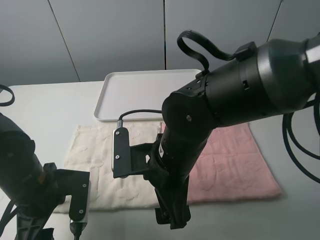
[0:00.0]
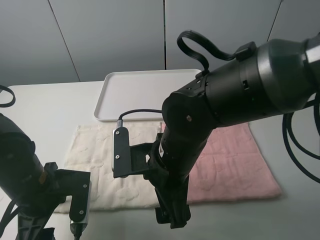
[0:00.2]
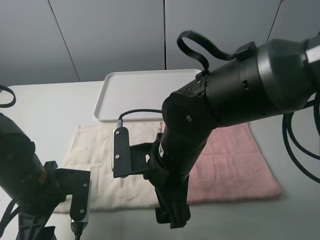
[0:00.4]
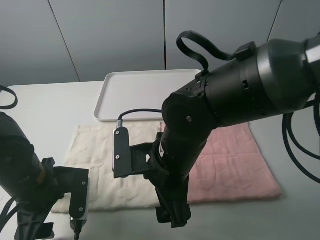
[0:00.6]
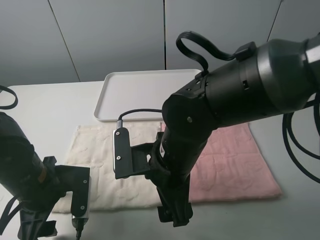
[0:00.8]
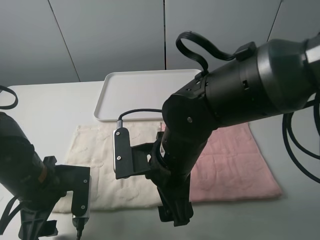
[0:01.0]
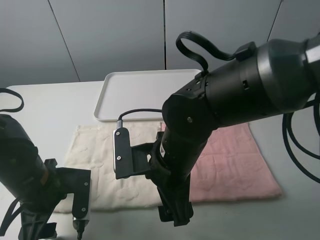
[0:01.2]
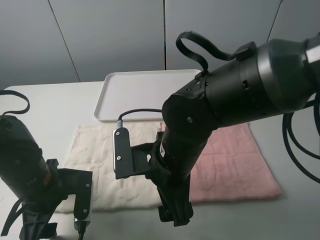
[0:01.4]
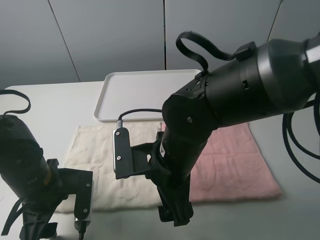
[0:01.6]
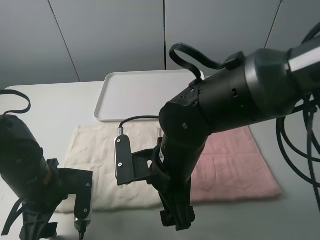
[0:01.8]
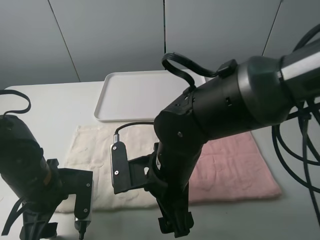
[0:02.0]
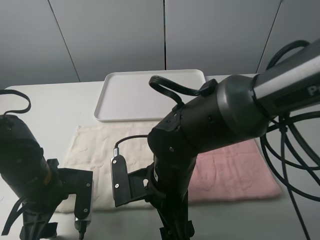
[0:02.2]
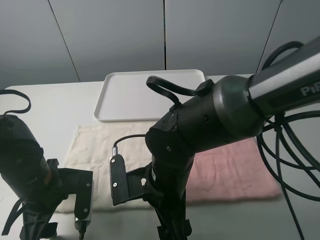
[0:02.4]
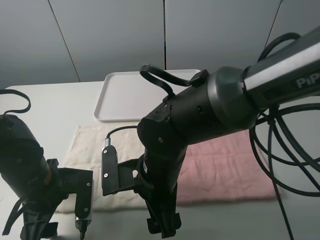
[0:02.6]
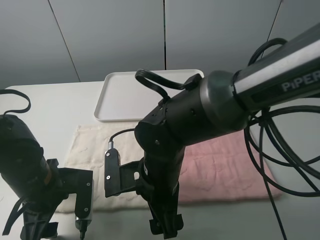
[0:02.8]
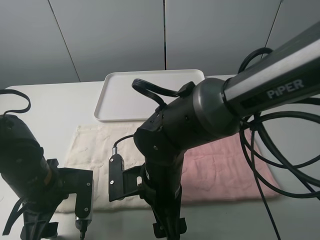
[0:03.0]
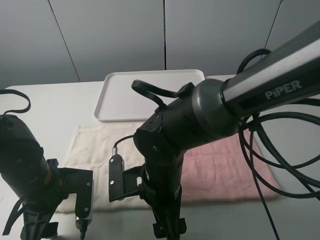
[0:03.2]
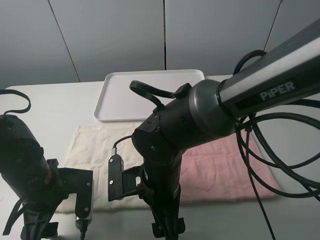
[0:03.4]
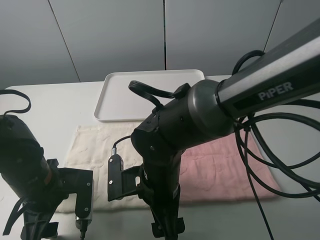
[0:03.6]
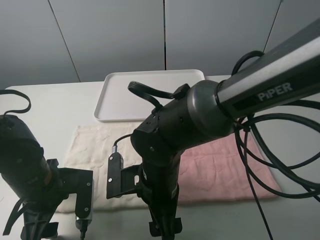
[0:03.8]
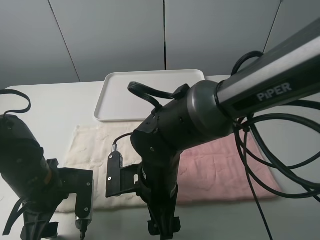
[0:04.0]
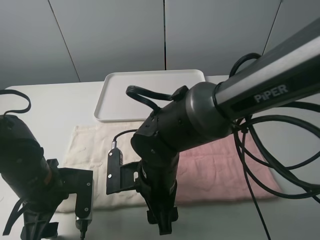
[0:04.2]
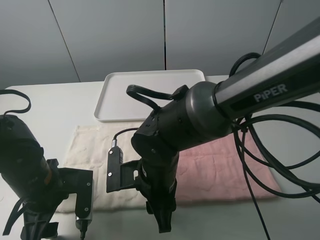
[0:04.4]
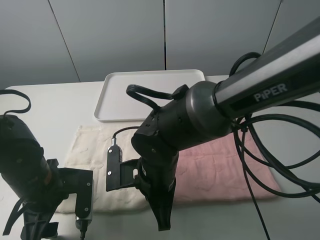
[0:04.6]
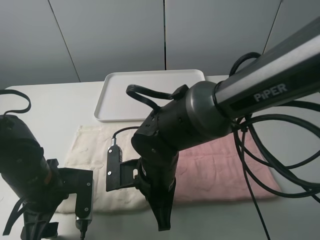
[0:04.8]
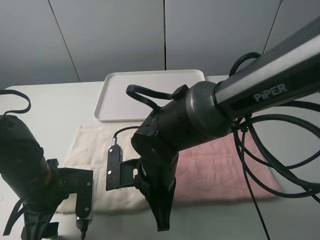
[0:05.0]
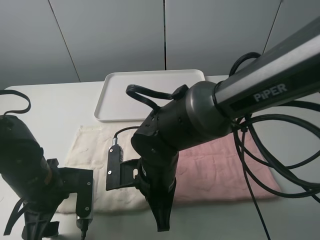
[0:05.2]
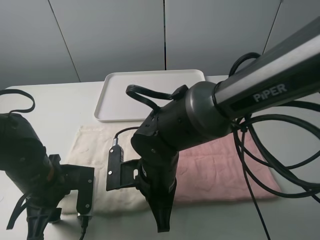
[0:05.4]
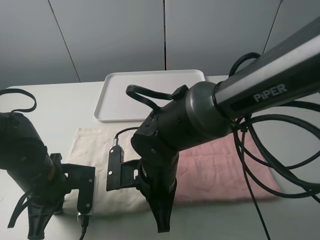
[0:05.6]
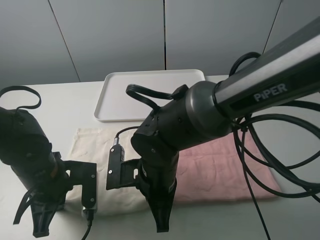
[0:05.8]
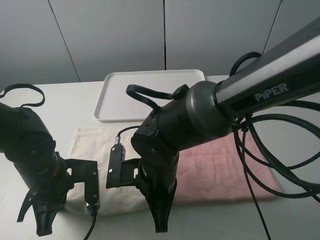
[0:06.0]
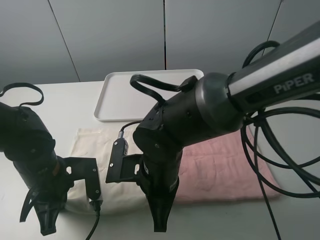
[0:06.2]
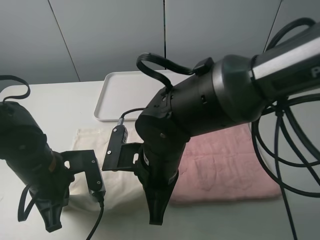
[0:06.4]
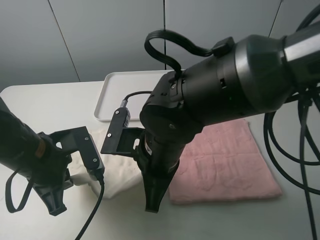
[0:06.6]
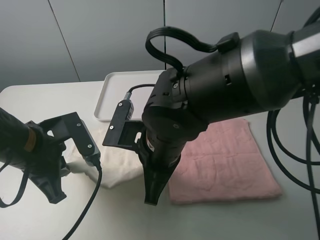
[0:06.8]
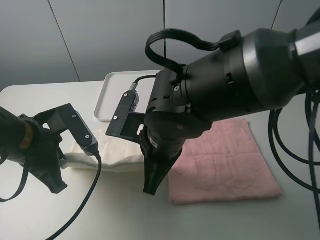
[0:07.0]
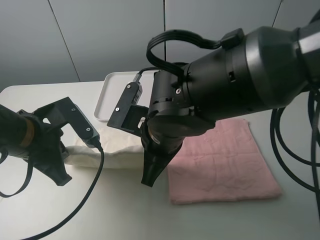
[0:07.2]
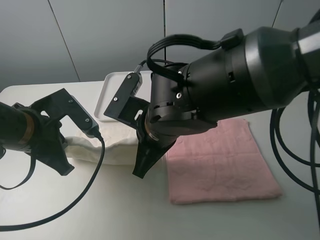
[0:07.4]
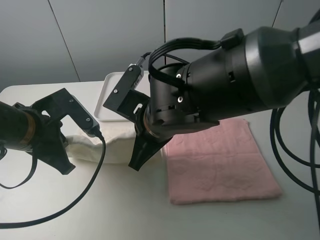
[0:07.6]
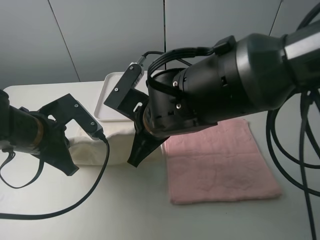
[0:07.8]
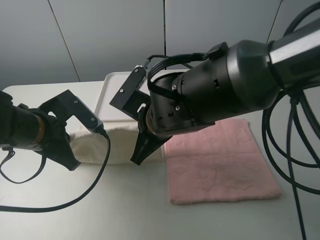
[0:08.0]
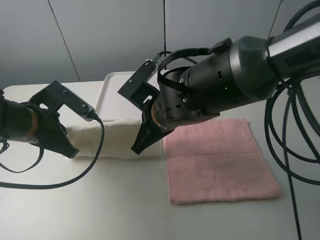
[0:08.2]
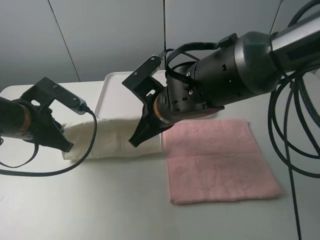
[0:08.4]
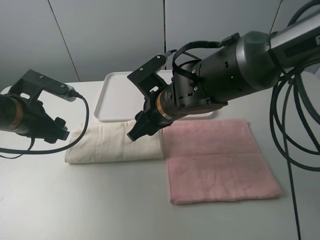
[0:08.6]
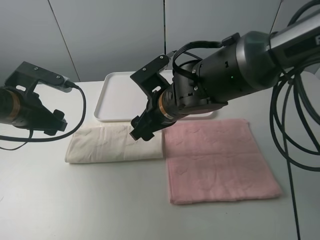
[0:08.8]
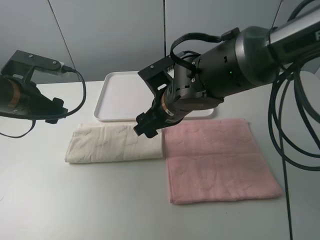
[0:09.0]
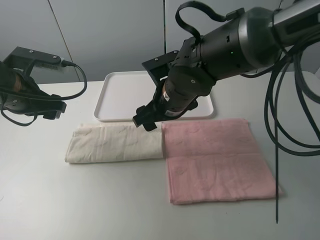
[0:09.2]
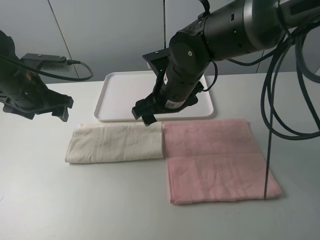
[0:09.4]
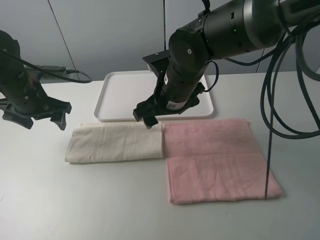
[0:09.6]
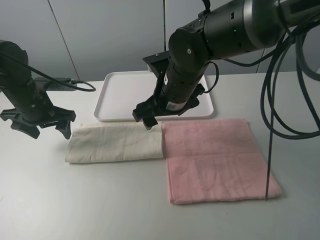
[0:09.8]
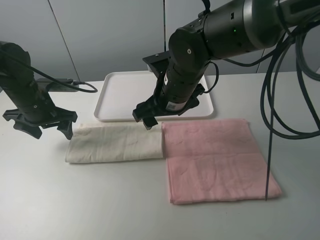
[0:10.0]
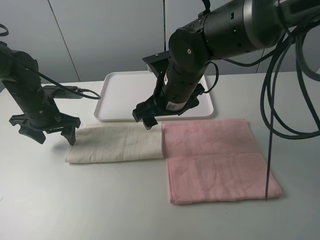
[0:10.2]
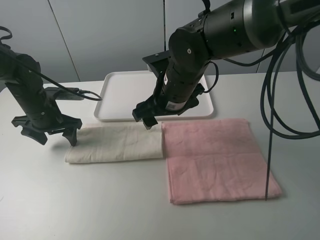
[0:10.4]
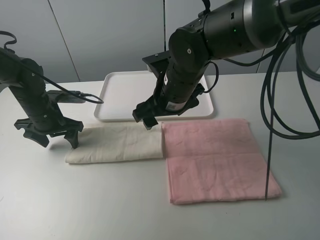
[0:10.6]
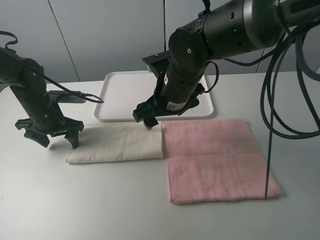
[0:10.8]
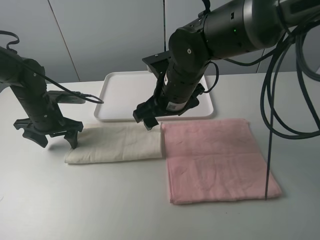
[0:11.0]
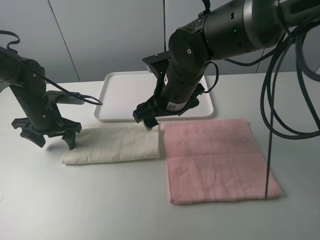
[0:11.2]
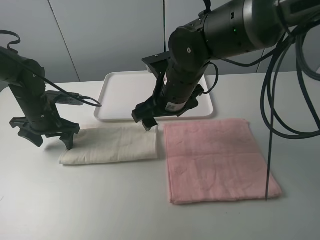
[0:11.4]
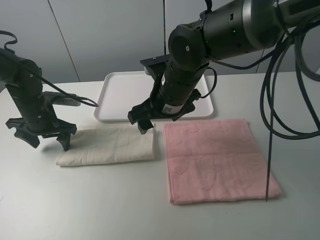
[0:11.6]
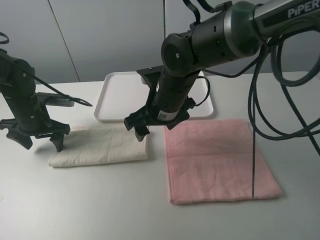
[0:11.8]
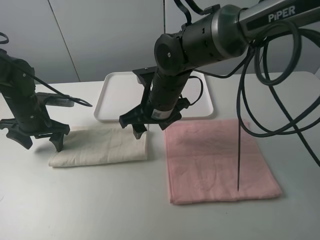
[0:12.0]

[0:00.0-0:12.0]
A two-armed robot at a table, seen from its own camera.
Task of the whole recording: fold one of the towels by two grippers and place it on the tray,then fold another towel by two grippers and place it on the folded towel.
Step, 0:00.0 to 0:05.8: Grasp the white towel with the left gripper.
Step, 0:06.2 to 0:08.8: Fold the white towel upwards with the left gripper.
Step, 0:09.0 to 0:10.8: Press the white towel with the left gripper.
0:00.0 to 0:01.6: The grippers move only a little.
0:01.6 to 0:03.0: The right gripper ends up approximately 5 cm from where it was.
0:03.0 to 0:04.4: The right gripper closes.
0:04.4 to 0:06.0: The left gripper closes its fingers; the right gripper closes up.
0:06.0 to 0:07.6: Both grippers move upward, roughly 10 cm.
0:07.6 to 0:09.0: The left gripper heads forward and to the left, covering some 10 cm, and opens. The right gripper goes about 5 cm forward, and opens up.
0:09.0 to 0:10.4: The left gripper heads downward and forward, covering about 10 cm.
0:10.4 to 0:12.0: The grippers stay close to where they were, moving slightly.

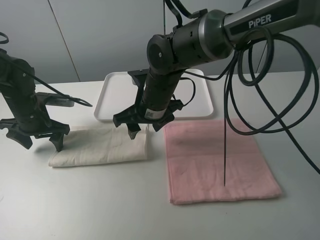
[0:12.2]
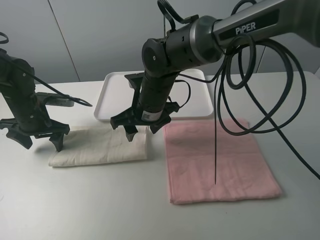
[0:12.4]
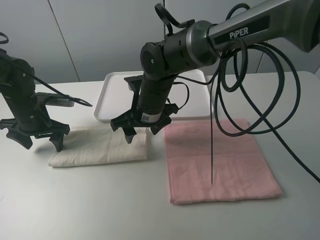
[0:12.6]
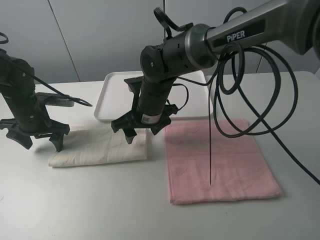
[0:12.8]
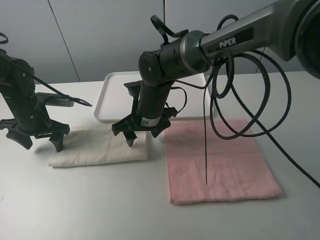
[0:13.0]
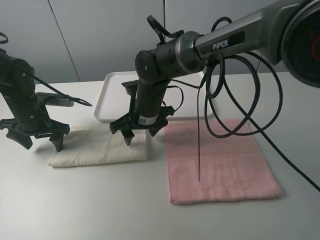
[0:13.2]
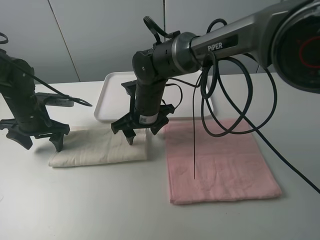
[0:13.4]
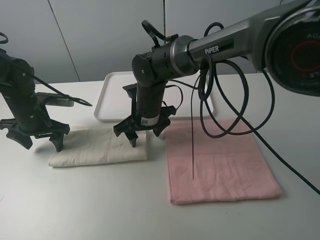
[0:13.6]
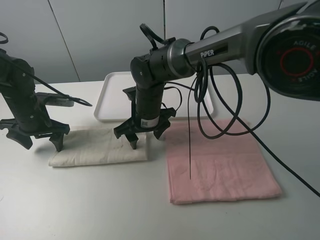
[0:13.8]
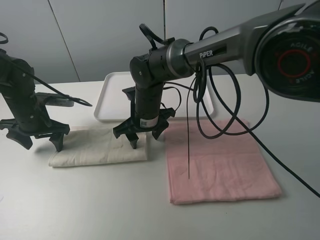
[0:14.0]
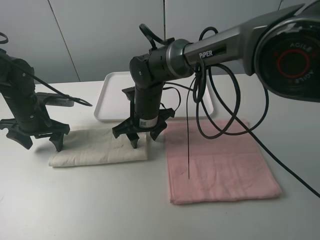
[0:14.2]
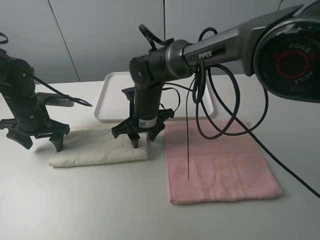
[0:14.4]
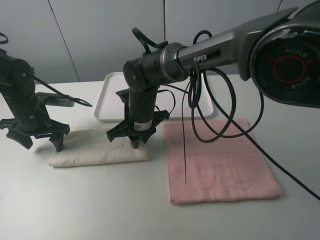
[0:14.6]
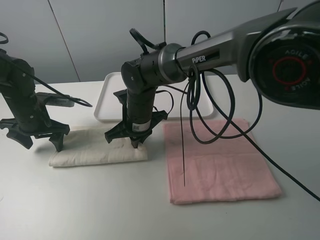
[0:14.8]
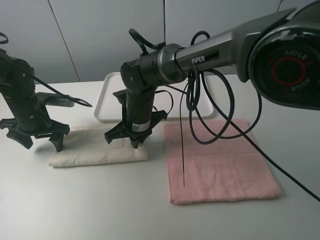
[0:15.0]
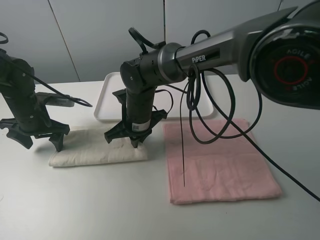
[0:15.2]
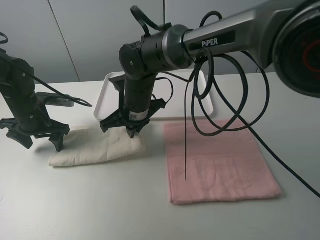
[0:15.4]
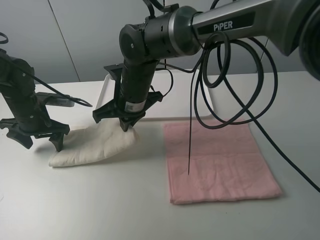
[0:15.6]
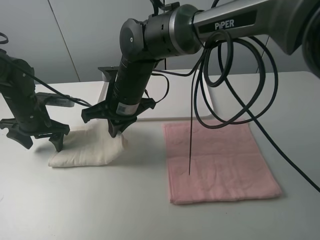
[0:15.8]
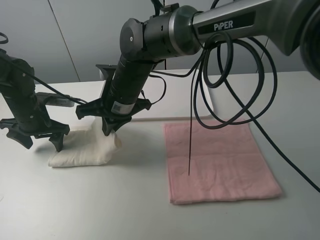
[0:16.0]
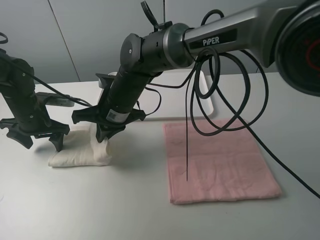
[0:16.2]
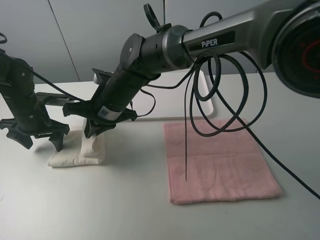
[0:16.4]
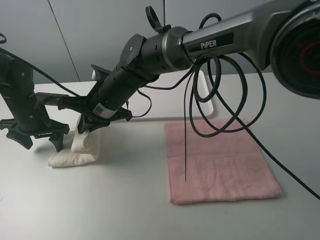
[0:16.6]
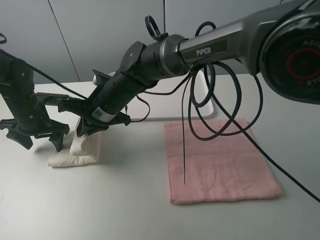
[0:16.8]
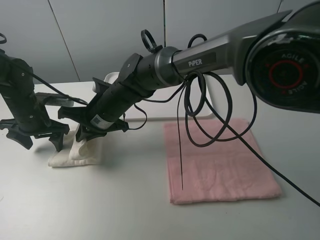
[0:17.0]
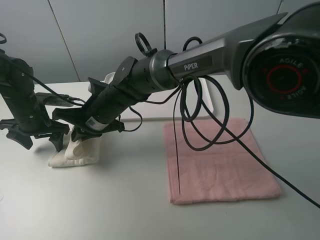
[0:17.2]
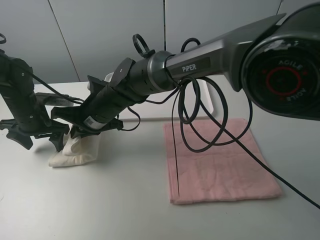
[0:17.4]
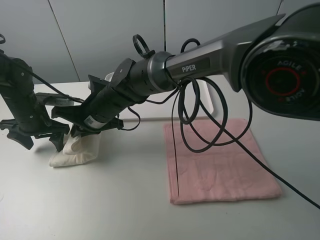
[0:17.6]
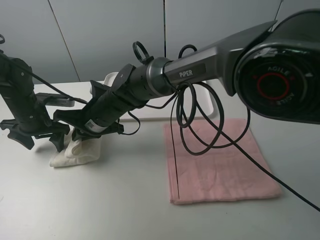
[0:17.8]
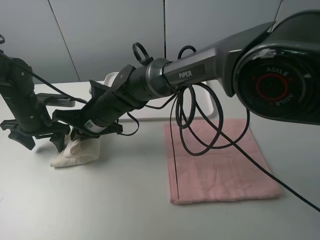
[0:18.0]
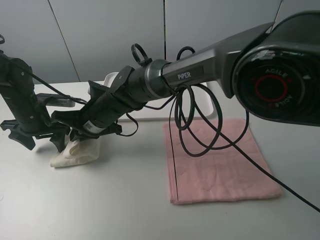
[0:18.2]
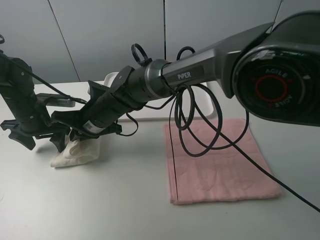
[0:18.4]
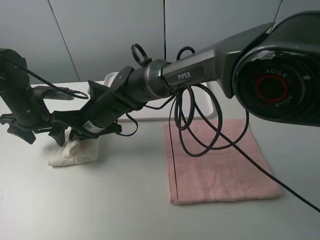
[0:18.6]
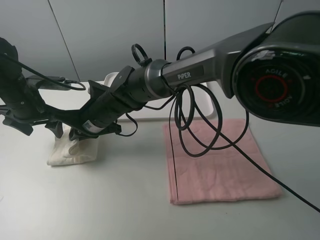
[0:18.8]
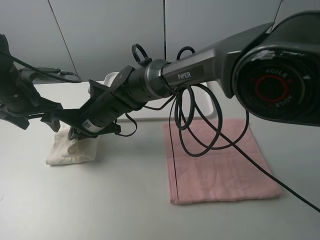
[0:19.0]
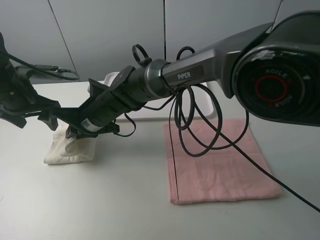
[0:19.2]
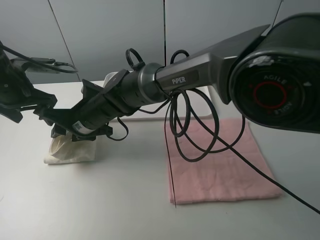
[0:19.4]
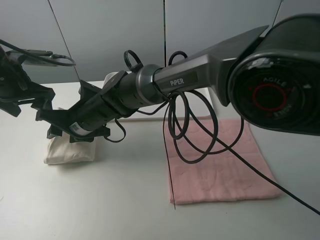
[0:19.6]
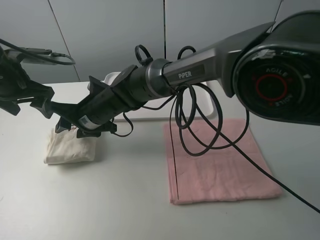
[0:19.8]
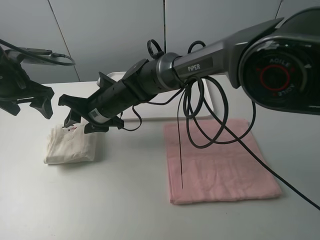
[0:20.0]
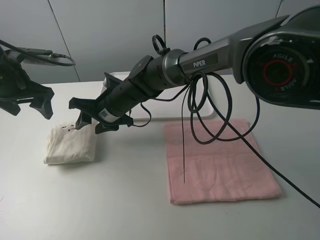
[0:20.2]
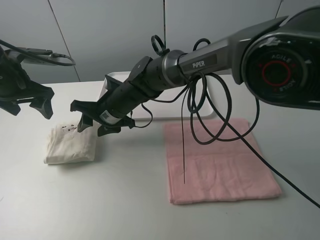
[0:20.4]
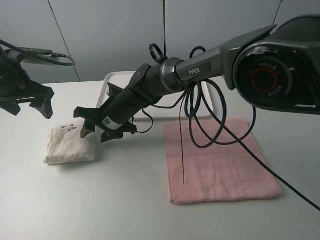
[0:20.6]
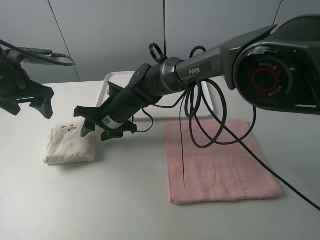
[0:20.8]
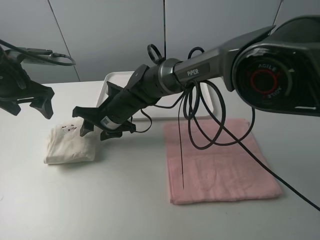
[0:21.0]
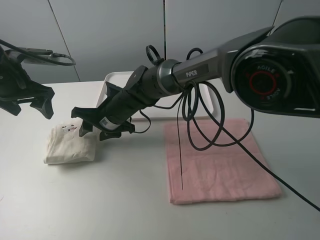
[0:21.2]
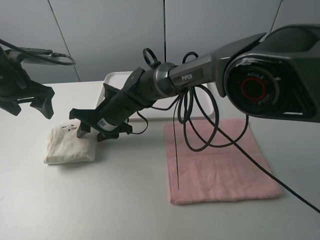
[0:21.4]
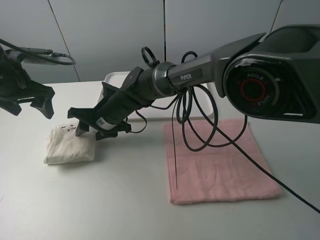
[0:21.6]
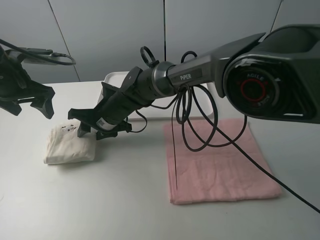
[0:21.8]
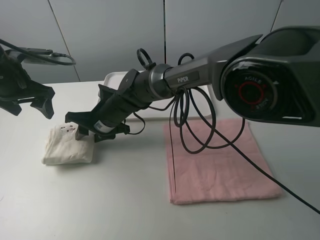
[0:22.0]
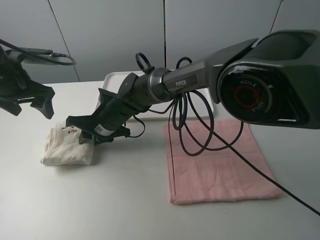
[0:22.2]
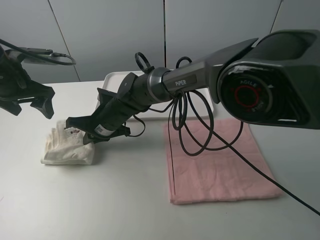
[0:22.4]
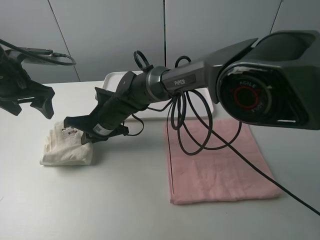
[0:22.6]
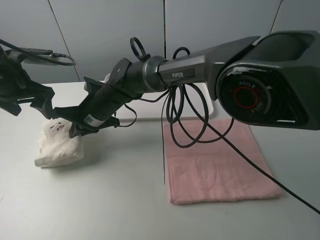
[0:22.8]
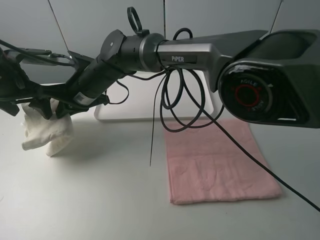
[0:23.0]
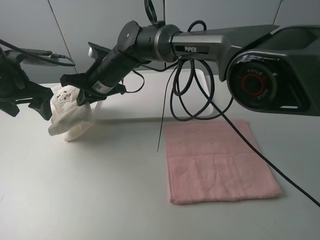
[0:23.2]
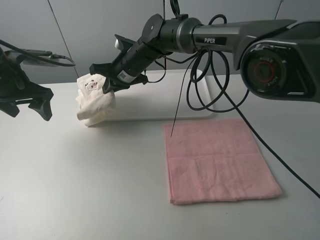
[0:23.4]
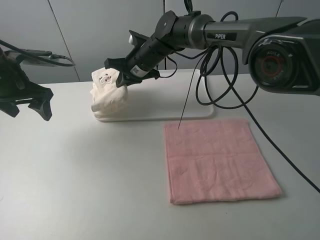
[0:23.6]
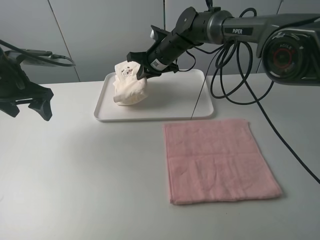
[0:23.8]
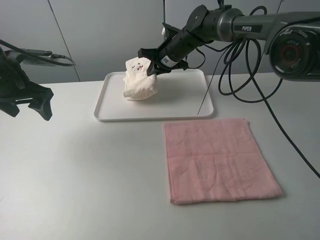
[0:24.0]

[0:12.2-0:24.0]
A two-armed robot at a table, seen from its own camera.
Task of the whole recording: fold one of the towels by two grippers and place it on the tray,then fold another towel by two grippers and place it on the folded towel.
Step, 0:12.2 to 0:14.8: Grasp the white towel with the right gripper.
Step, 0:15.0 to 0:19.8: Fold the white towel from right to left with right gripper.
Step, 0:20.0 to 0:22.4: Grasp the white towel with the right gripper.
0:12.2 to 0:13.6: The right gripper moves roughly 5 cm.
0:13.6 to 0:15.2: The right gripper closes up.
0:15.2 to 0:16.6: The right gripper shifts by some 5 cm.
0:18.2 to 0:19.6: The right gripper opens up. Meanwhile the left gripper heads upward, covering approximately 10 cm.
0:19.6 to 0:21.0: The right gripper shifts by roughly 5 cm.
0:21.0 to 0:22.6: The right gripper closes.
0:22.6 to 0:24.0: The right gripper goes some 25 cm forward and to the right.
